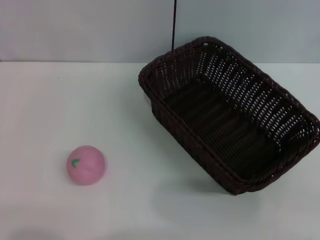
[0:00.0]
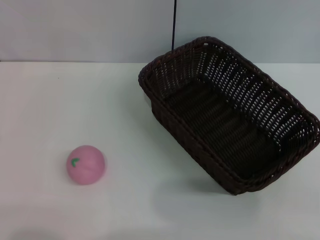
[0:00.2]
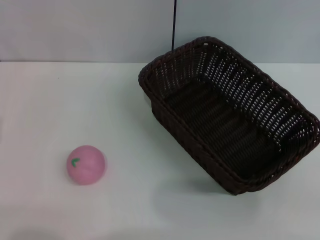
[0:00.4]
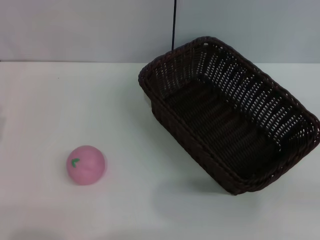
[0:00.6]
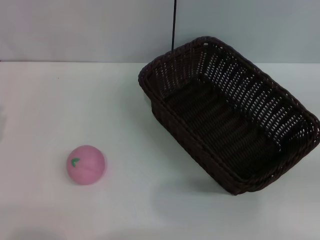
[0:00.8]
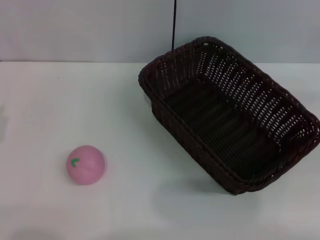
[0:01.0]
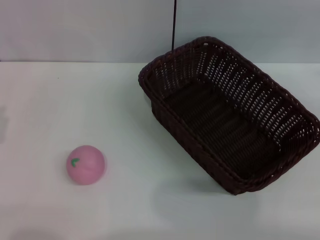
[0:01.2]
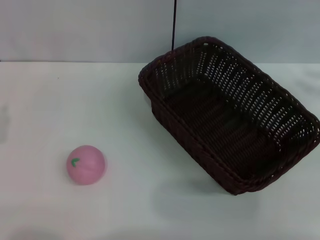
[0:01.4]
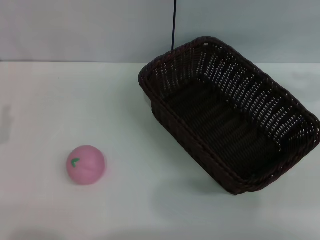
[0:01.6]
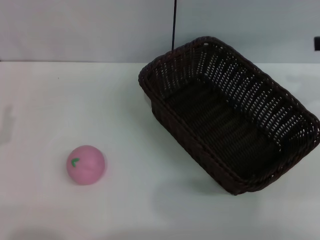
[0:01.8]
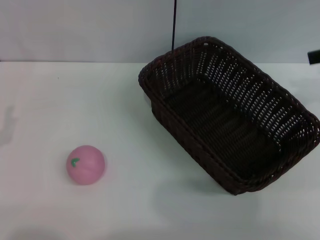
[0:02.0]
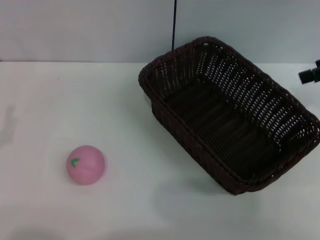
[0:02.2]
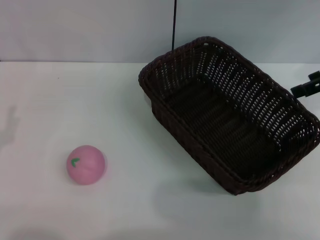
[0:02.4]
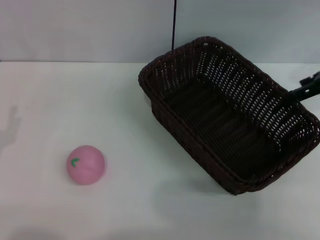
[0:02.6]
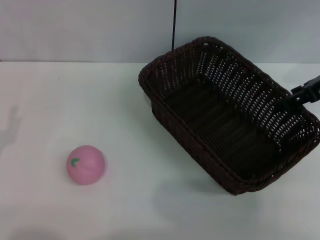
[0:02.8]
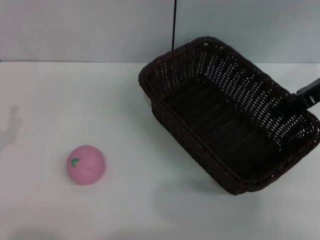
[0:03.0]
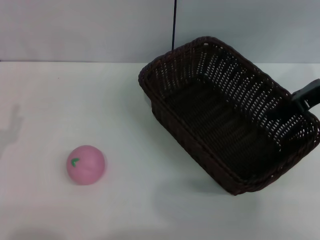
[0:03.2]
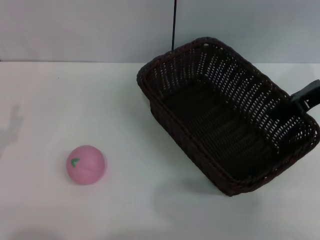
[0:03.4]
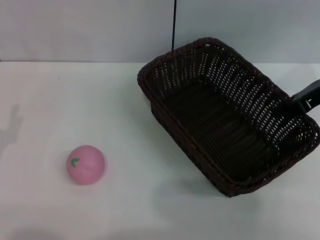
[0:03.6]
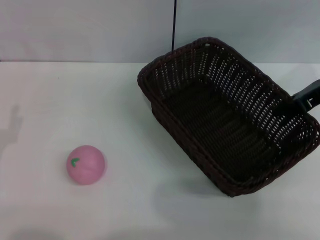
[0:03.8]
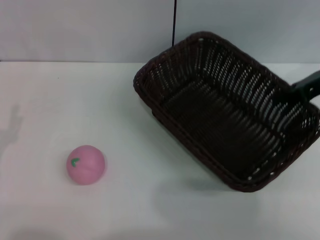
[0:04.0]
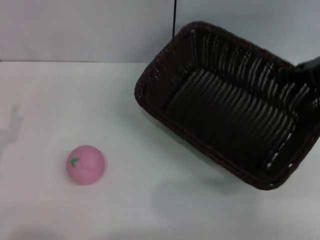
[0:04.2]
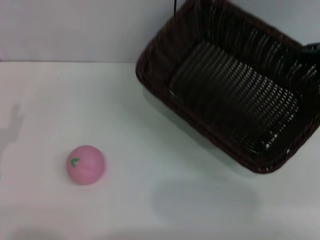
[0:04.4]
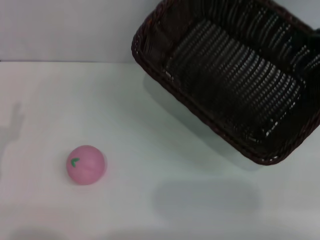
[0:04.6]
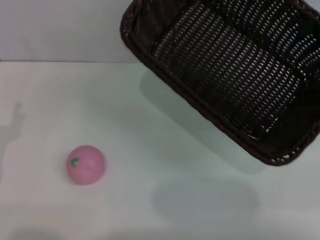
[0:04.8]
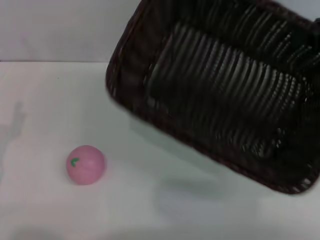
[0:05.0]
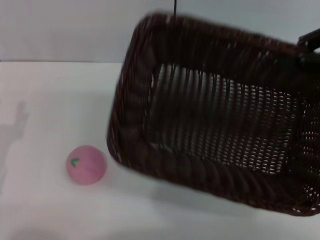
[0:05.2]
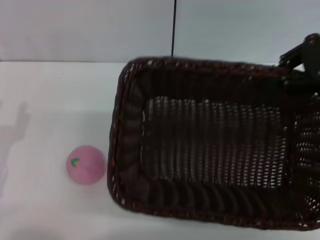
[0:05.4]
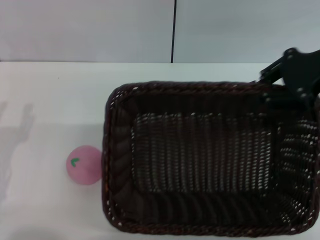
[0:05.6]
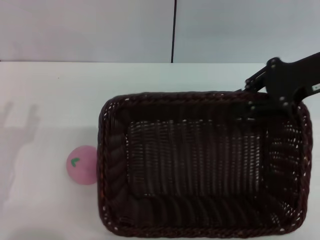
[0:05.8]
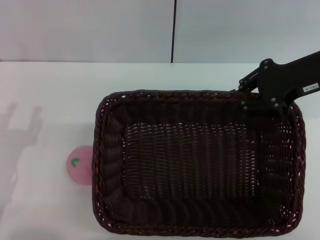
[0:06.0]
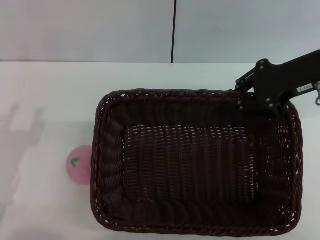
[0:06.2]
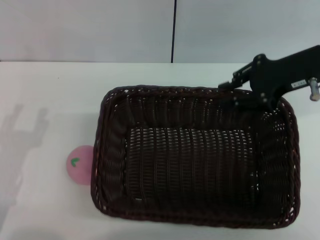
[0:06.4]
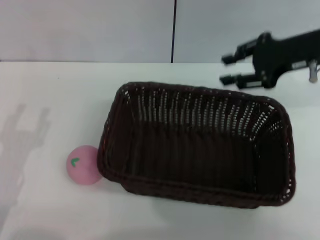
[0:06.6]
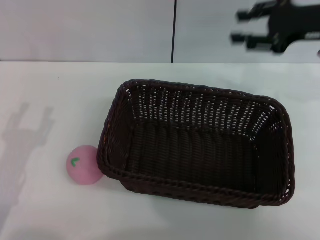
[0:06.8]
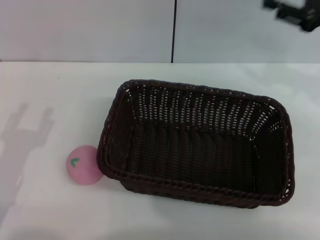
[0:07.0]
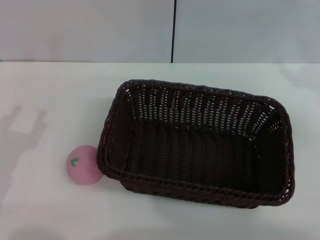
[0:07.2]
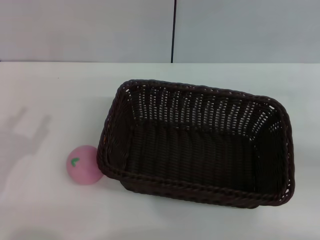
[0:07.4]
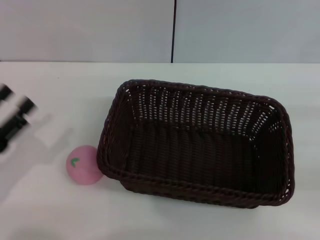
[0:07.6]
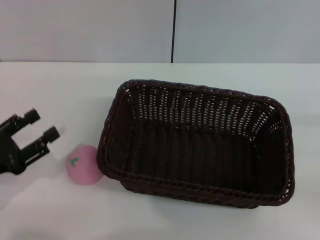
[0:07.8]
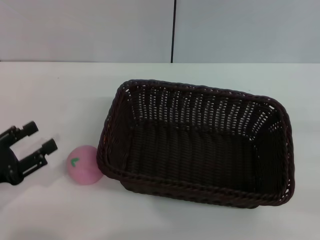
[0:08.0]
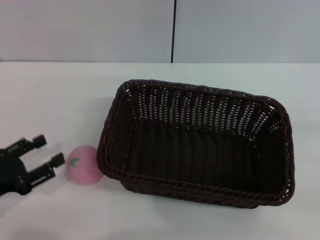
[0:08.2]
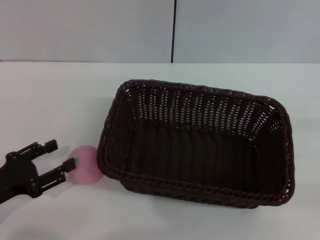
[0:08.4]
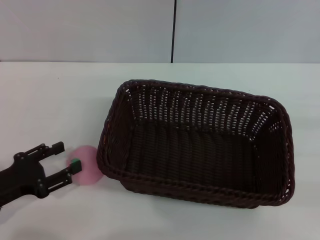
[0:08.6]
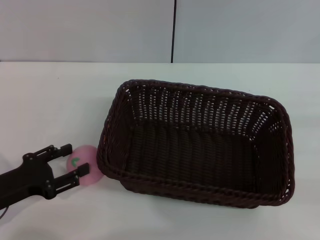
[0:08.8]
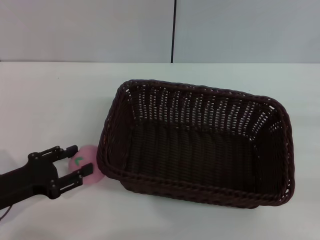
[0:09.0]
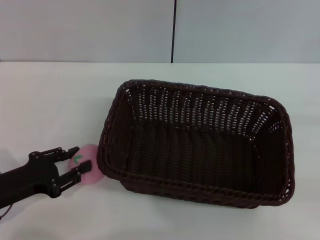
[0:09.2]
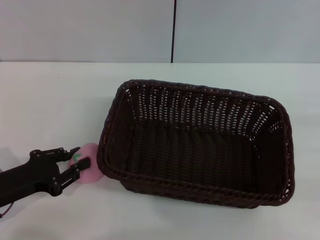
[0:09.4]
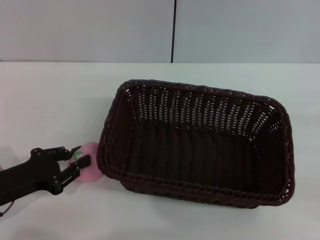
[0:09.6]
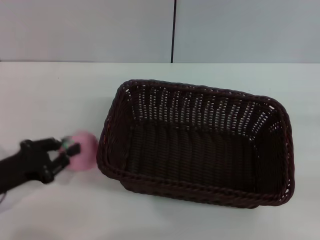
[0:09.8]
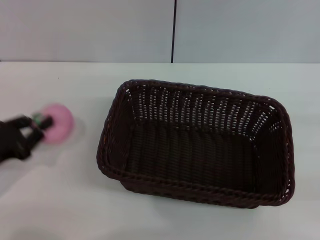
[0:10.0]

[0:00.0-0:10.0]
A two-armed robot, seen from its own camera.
Step, 0:00.0 to 0:04.8: Pick up the dark basket with the right gripper.
Step, 0:05.2 to 0:06.6: Place the dark basket in the center of view with the right gripper.
0:01.4 to 0:02.8: The right gripper is displaced to the left, forward and downward by some 15 cm.
0:02.8 to 0:04.2: The right gripper closes its fingers.
0:04.2 to 0:05.8: The right gripper heads to the left, covering about 5 cm.
0:05.8 to 0:07.2: The right gripper is displaced to the right by about 10 cm, and opens its fingers.
0:08.6 to 0:10.0: The left gripper closes its fingers.

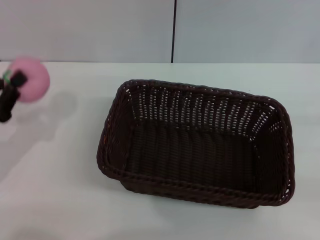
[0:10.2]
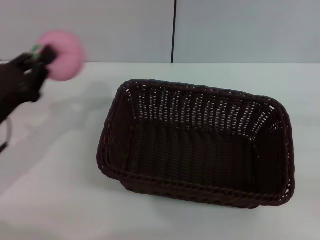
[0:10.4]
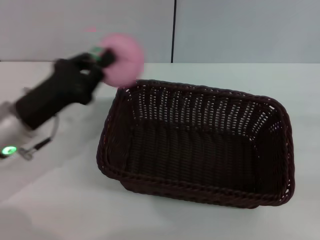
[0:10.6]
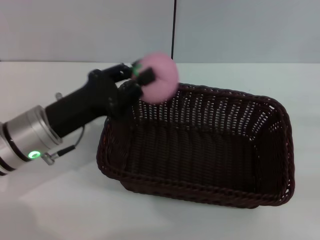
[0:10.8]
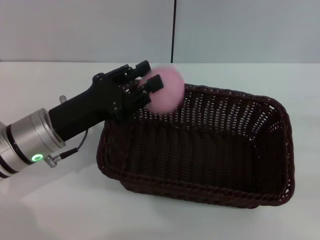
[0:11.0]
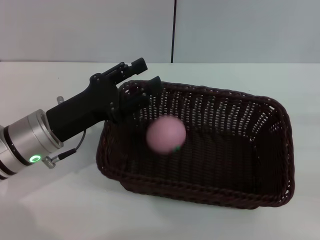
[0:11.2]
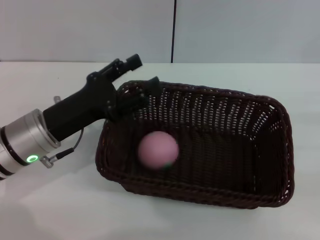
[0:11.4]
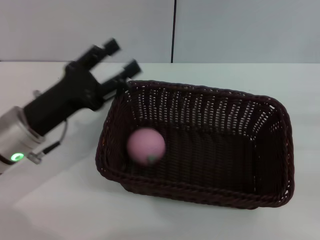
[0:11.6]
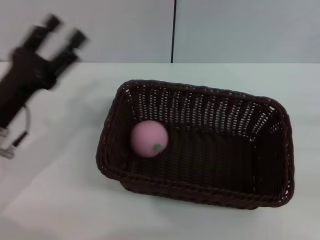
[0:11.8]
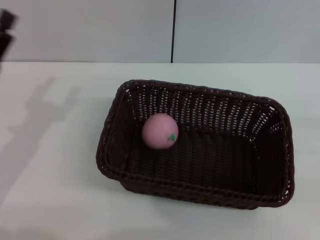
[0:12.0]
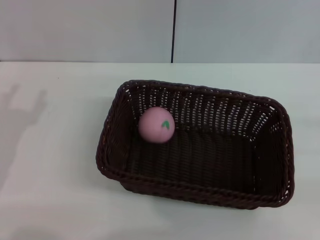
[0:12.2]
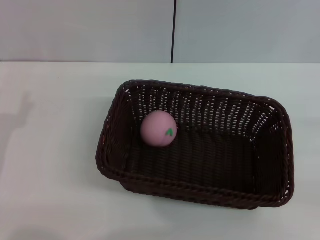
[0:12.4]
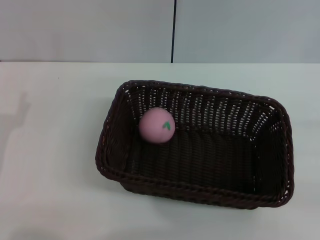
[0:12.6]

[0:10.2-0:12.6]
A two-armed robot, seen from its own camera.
Step, 0:10.4 to 0:11.6: Place the peach into the basket with the left gripper.
0:10.2 to 0:11.4: The left gripper shifts roughly 10 cm to the right, and opens up.
0:11.4 to 0:12.6: The left gripper is displaced to the left and backward by approximately 10 cm.

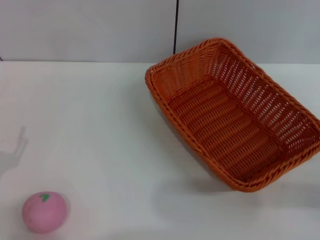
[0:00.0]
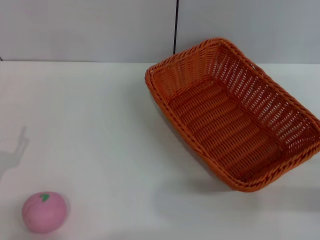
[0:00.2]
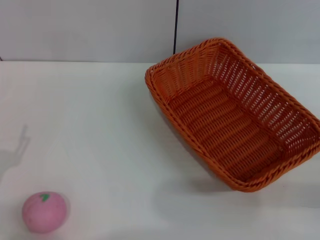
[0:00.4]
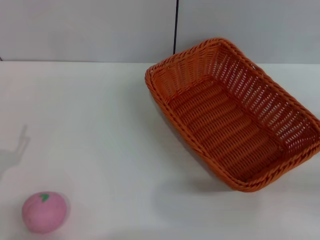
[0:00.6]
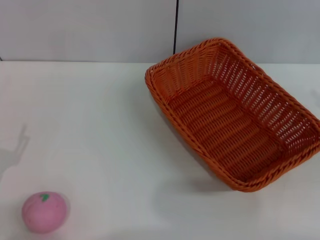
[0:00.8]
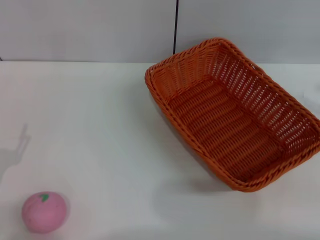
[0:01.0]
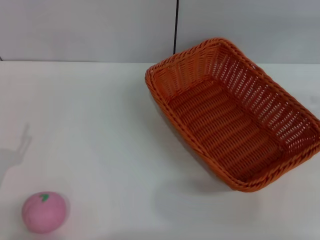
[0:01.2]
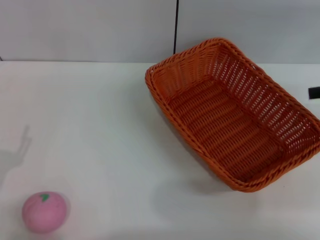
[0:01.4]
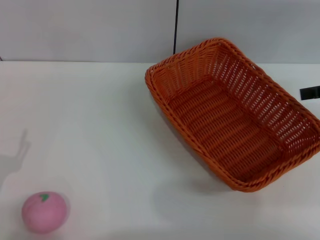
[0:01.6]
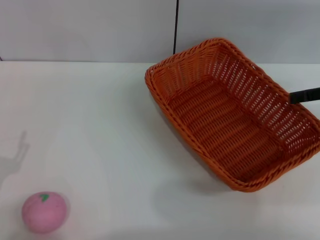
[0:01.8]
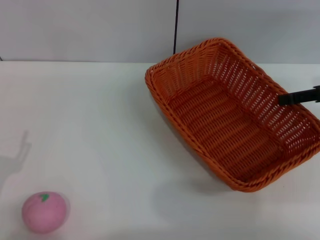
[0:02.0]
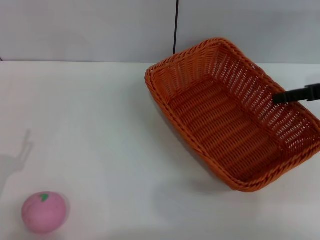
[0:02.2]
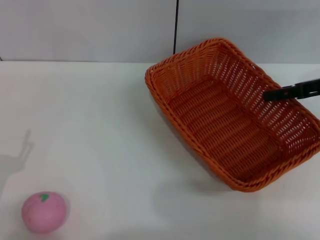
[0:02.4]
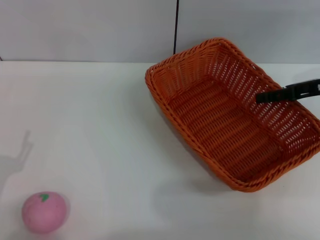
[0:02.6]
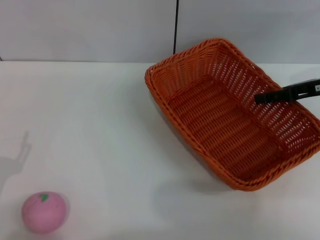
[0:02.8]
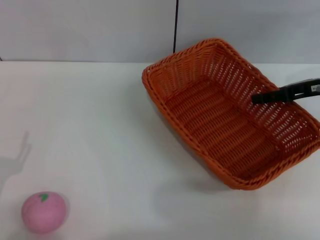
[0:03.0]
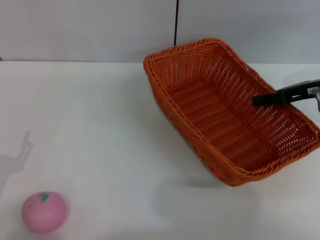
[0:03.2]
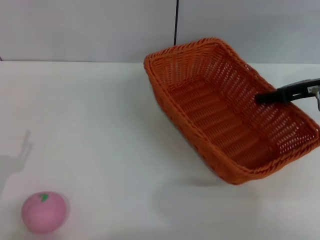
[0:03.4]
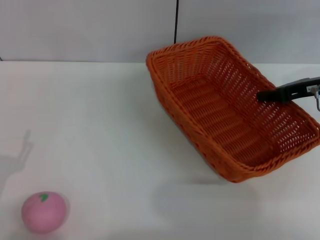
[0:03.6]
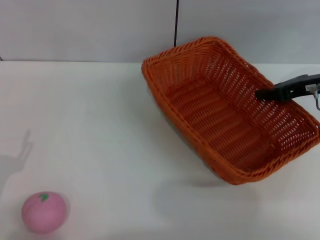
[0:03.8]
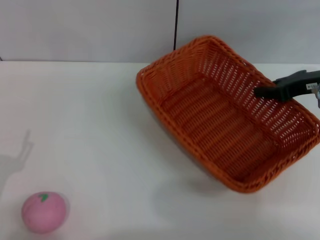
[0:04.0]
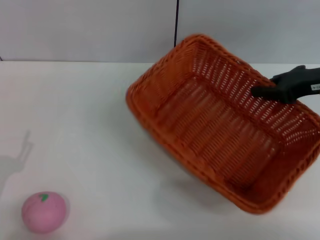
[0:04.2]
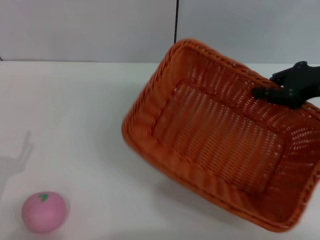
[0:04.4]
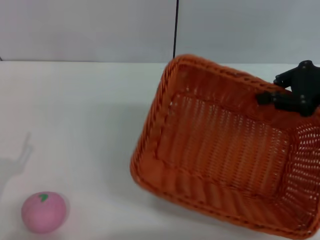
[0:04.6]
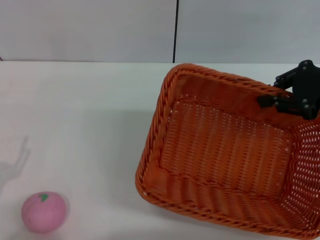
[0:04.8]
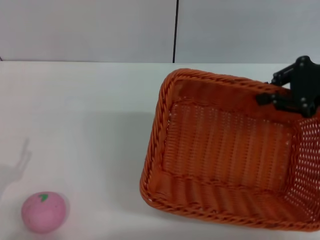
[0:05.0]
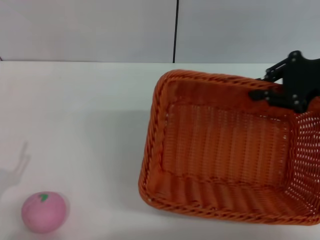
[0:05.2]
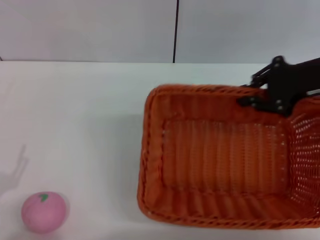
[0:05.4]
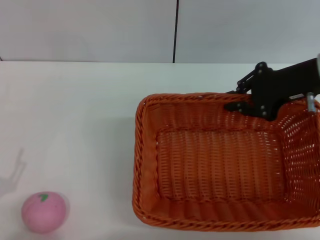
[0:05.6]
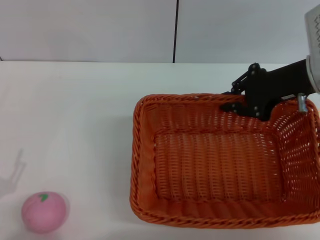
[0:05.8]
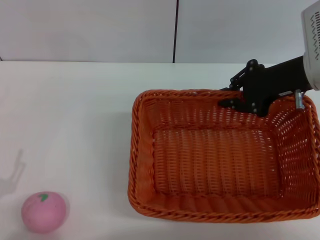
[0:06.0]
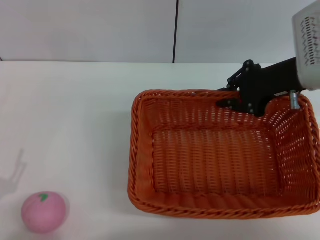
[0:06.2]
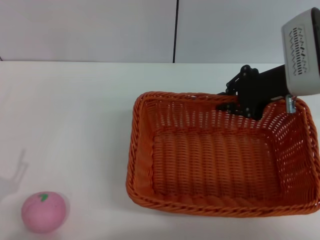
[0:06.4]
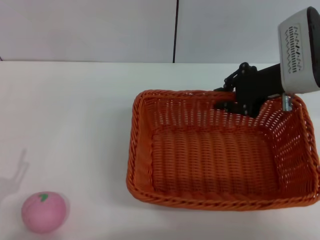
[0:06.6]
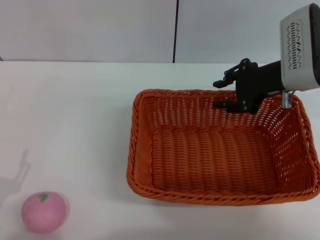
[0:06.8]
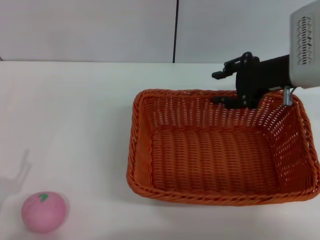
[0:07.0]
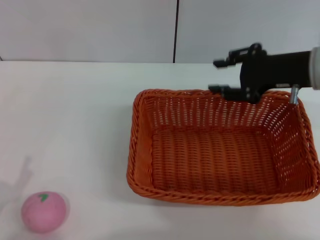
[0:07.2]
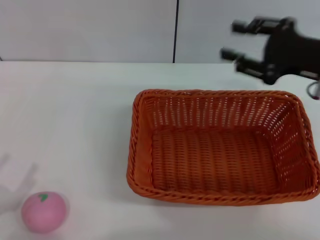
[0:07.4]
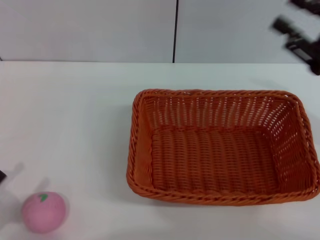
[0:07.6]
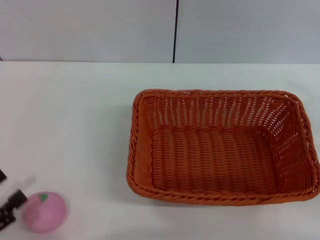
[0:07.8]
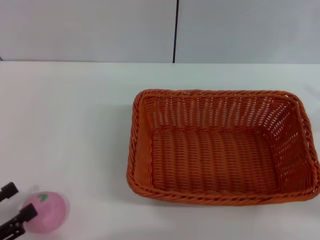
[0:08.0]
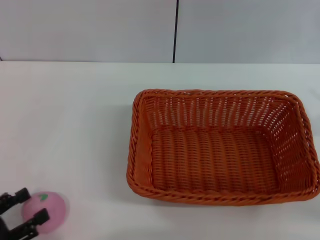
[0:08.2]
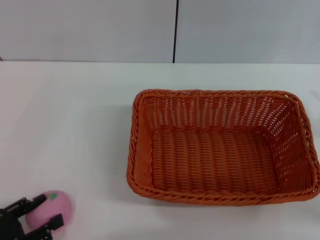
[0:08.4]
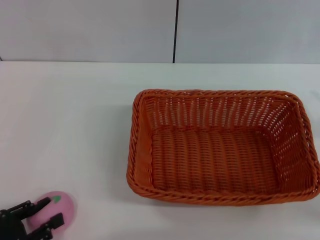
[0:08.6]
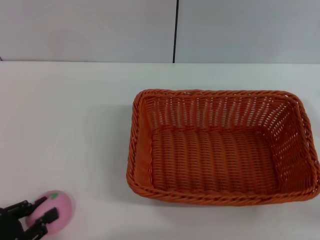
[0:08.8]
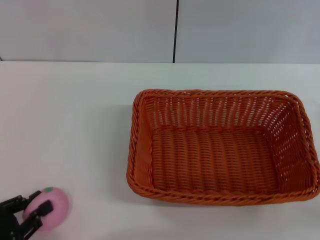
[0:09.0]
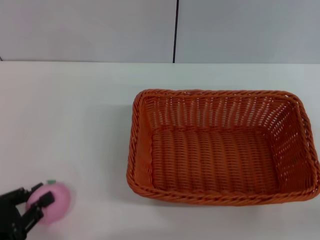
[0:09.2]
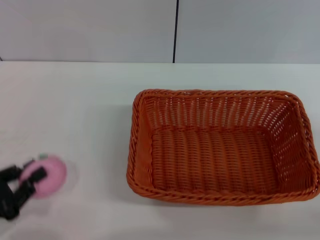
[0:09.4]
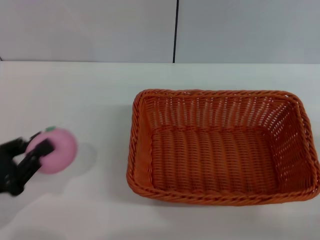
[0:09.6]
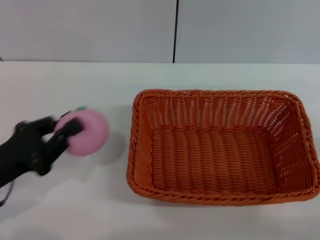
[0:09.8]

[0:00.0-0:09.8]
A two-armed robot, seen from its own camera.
Step, 0:00.0 to 0:04.0: Pick up the light basket with the right gripper.
Step, 0:04.2 to 0:07.0: Place the light basket in the center of view with the right gripper.
Step, 0:07.2 to 0:09.4: Pick up the peach with the left gripper.
0:00.0 to 0:01.4: The right gripper shifts roughly 20 cm upward and forward.
0:01.4 to 0:02.8: The right gripper is displaced to the left and downward by roughly 10 cm.
0:02.8 to 0:04.2: The right gripper closes its fingers.
0:04.2 to 0:05.6: The right gripper moves some 5 cm.
0:05.6 to 0:07.0: The right gripper opens its fingers.
0:07.0 to 0:08.4: The right gripper moves backward and to the right, approximately 20 cm.
0:08.4 to 0:09.8: The left gripper is displaced forward by roughly 10 cm, and closes up. The right gripper goes approximately 5 cm downward.
